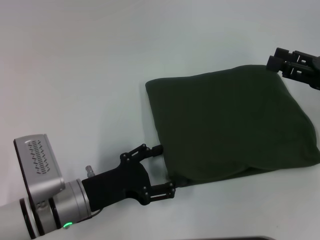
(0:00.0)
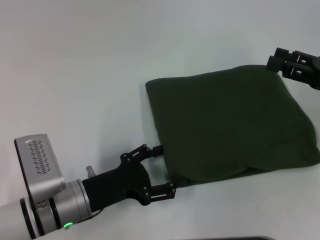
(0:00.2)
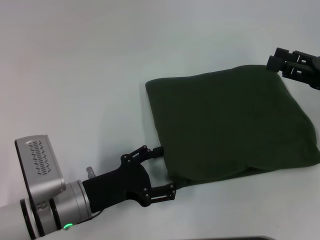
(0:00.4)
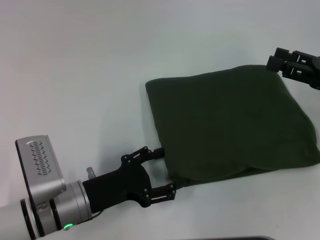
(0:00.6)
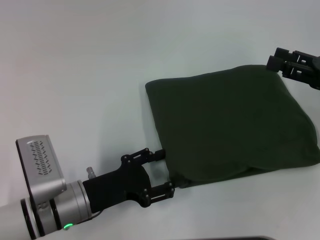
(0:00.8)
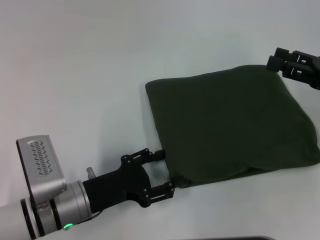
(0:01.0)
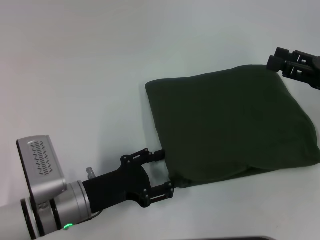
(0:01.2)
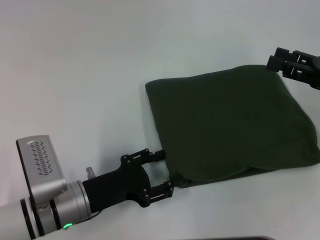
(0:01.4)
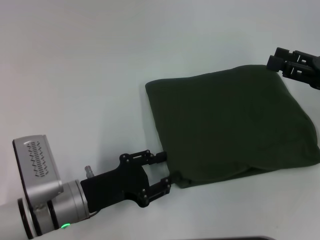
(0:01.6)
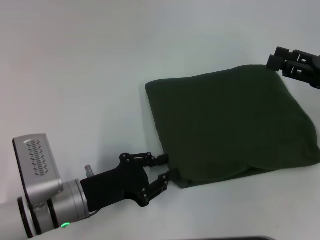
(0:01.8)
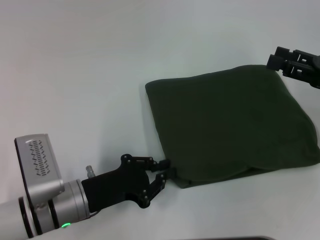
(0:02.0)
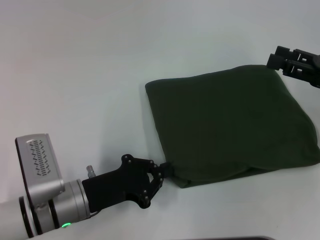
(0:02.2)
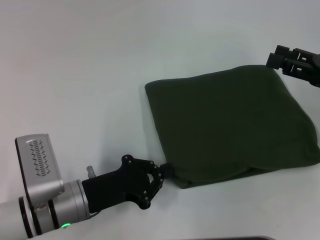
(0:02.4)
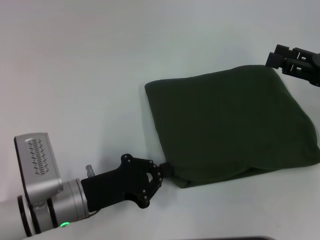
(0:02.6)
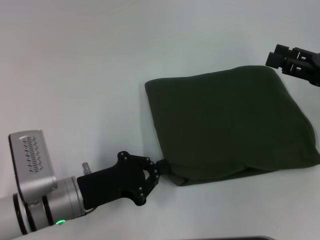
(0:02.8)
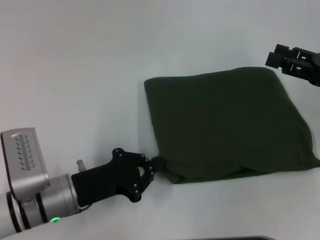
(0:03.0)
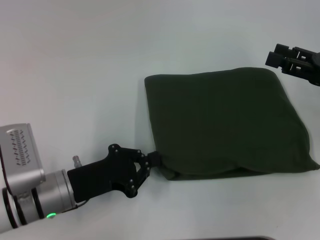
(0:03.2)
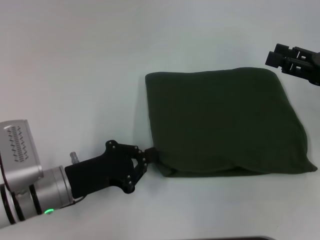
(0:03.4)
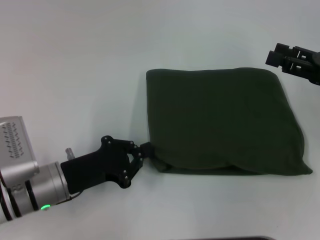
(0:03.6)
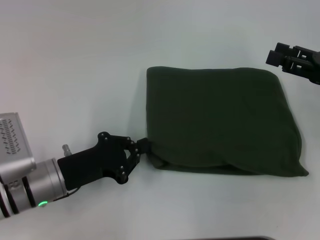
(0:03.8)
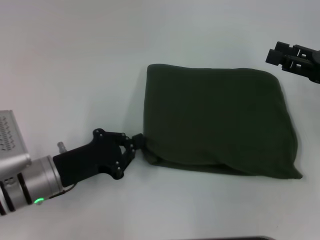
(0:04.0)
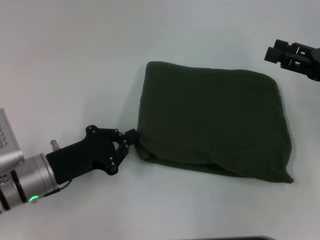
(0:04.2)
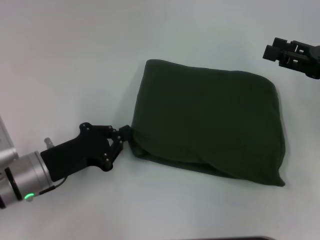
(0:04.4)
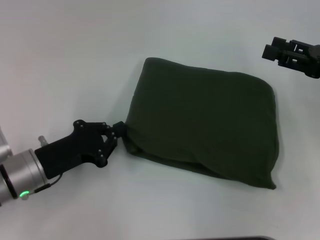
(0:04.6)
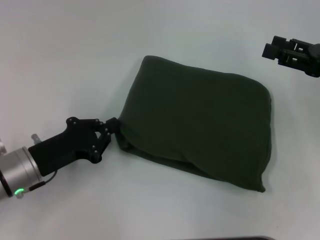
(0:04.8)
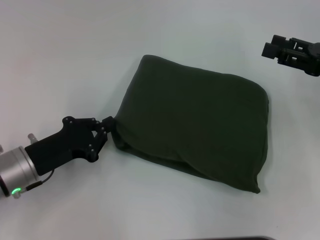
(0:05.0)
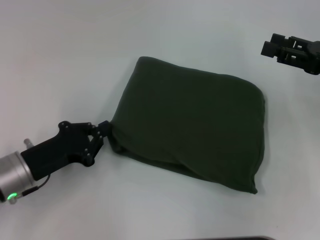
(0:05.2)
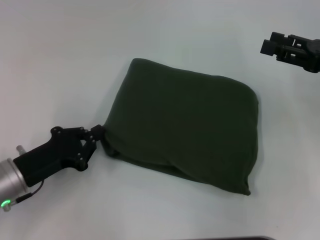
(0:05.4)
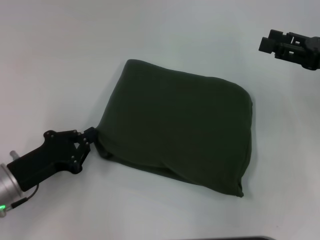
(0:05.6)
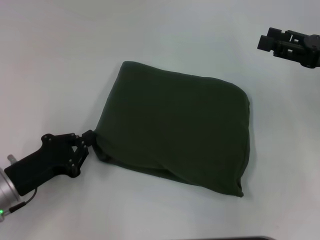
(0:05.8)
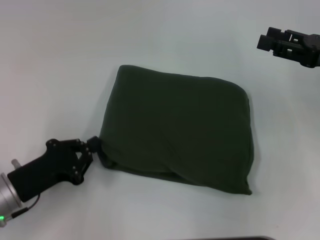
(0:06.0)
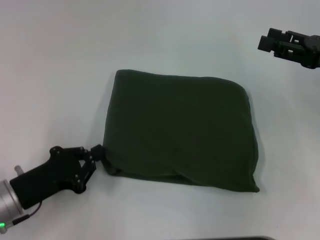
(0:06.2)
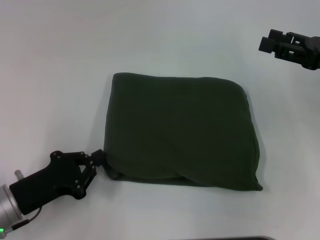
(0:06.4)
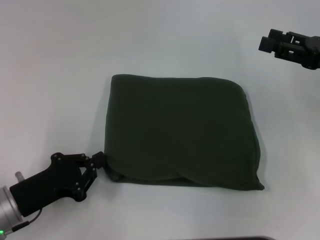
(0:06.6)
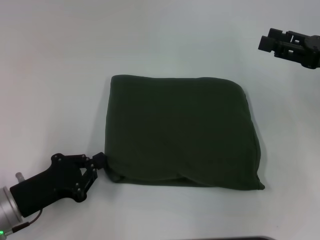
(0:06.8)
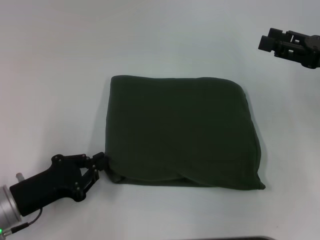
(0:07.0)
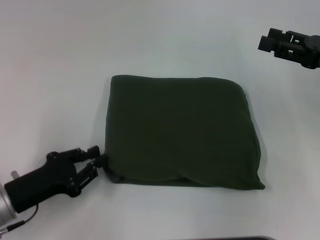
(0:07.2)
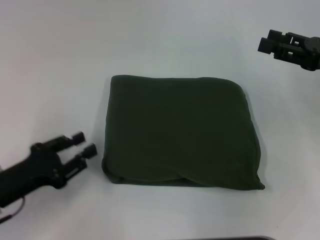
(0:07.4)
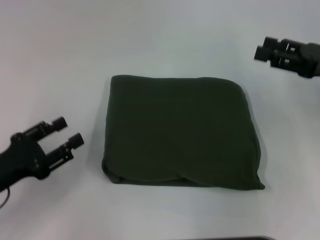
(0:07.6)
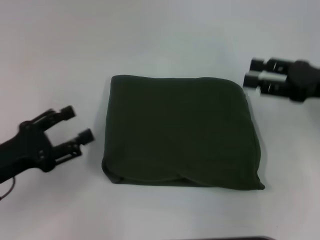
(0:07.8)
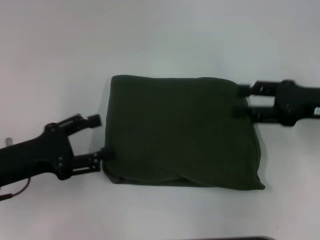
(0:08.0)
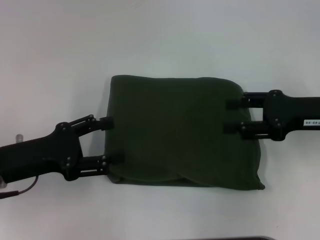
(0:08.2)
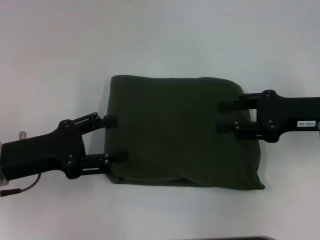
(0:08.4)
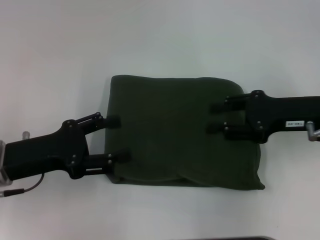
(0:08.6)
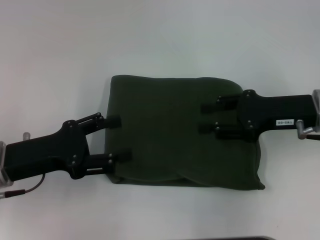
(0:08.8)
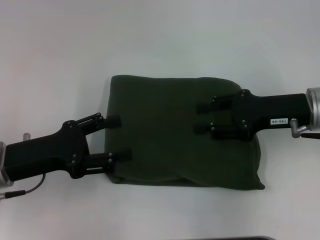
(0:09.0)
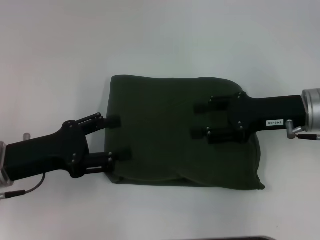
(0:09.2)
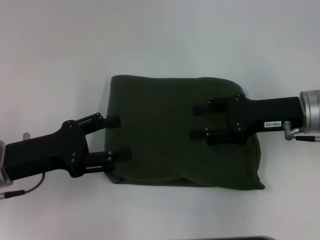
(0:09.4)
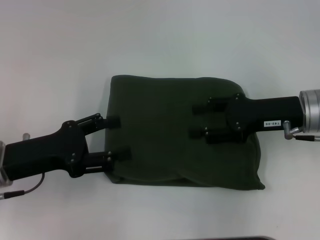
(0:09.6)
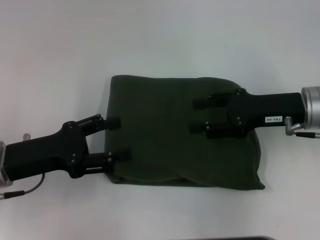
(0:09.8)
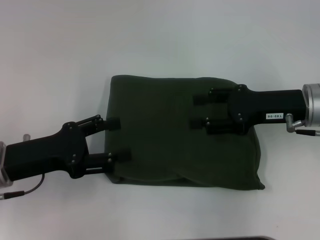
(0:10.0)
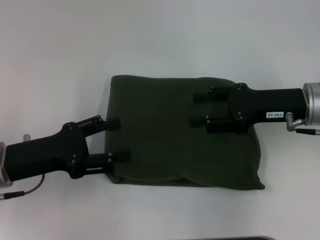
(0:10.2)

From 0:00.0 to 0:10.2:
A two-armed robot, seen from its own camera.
From 0:00.0 to 0:01.4: The two grippers keep their place.
From 0:01.4 to 0:03.0: The left gripper closes.
From 0:04.4 to 0:05.8: The left gripper moves approximately 5 cm.
From 0:05.8 to 0:07.2: The grippers make only small movements.
From 0:07.2 to 0:08.8: The right gripper goes some 10 cm to the left, while the left gripper is displaced upward by roughly 5 cm, and opens up.
From 0:08.8 to 0:10.2: The grippers move only a little.

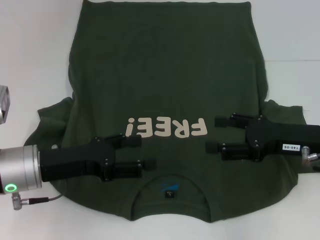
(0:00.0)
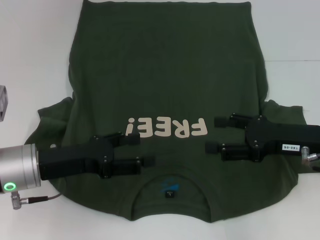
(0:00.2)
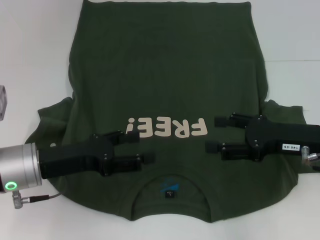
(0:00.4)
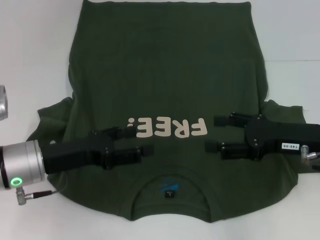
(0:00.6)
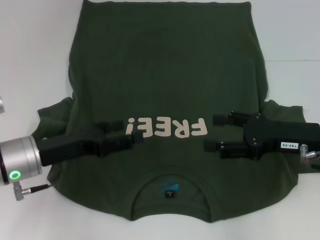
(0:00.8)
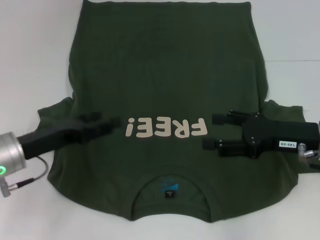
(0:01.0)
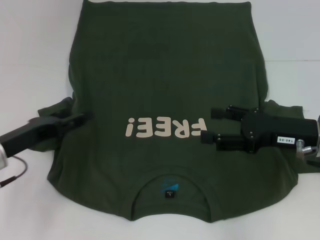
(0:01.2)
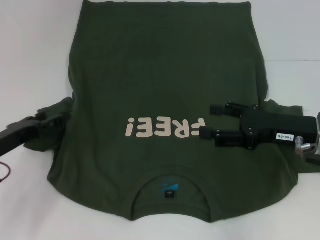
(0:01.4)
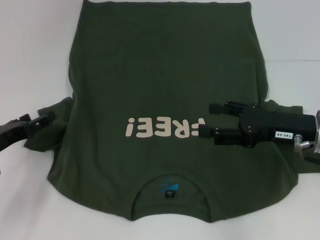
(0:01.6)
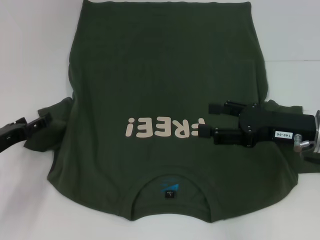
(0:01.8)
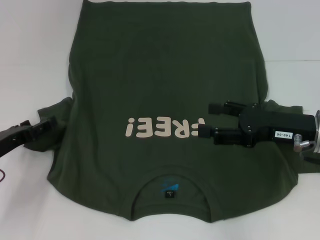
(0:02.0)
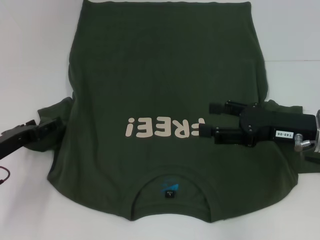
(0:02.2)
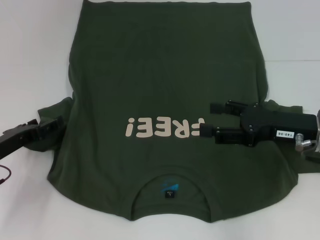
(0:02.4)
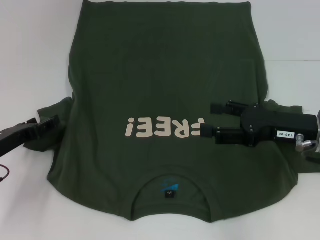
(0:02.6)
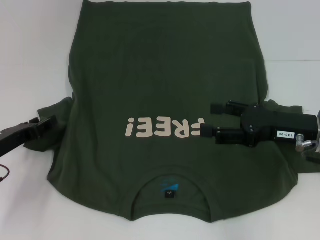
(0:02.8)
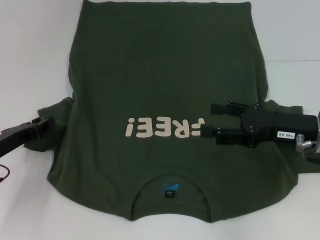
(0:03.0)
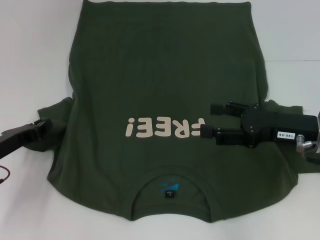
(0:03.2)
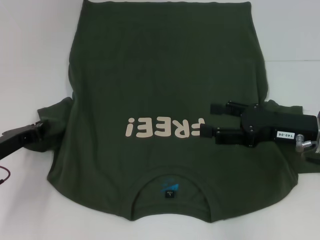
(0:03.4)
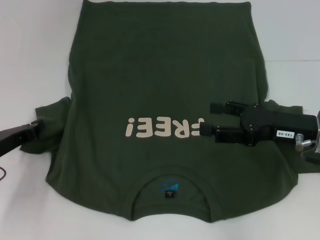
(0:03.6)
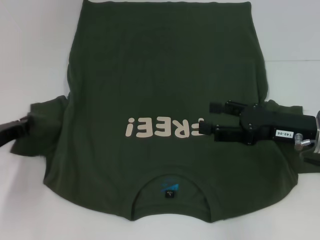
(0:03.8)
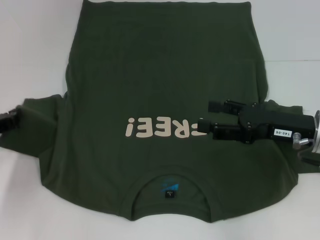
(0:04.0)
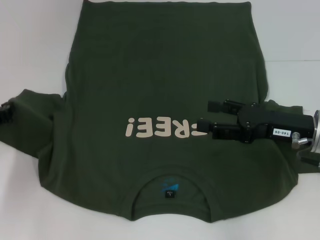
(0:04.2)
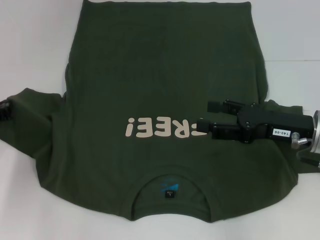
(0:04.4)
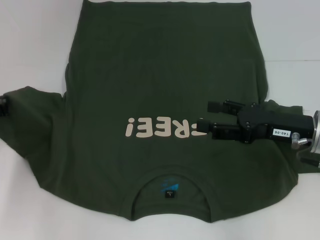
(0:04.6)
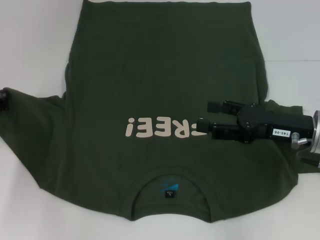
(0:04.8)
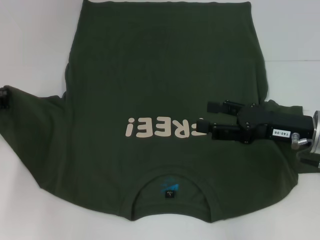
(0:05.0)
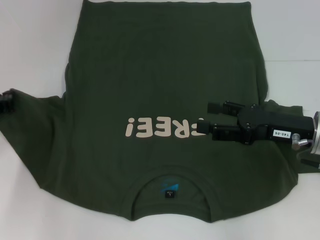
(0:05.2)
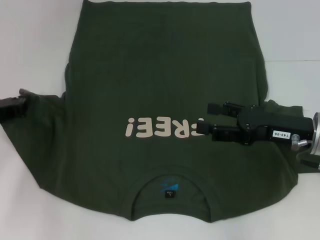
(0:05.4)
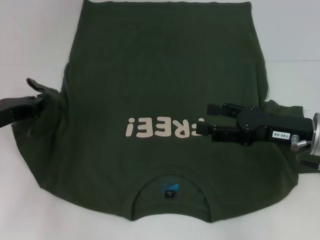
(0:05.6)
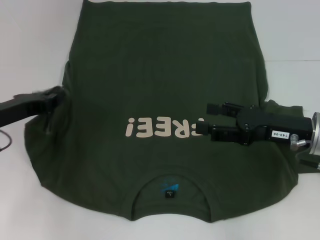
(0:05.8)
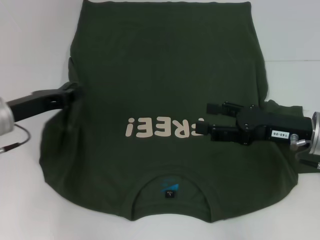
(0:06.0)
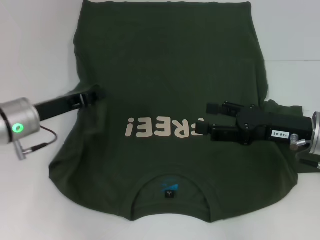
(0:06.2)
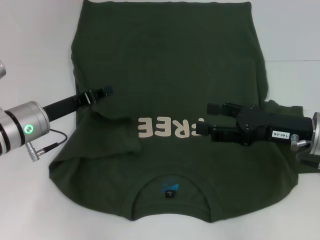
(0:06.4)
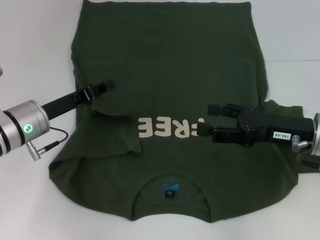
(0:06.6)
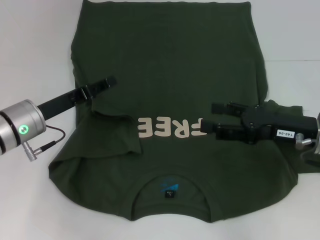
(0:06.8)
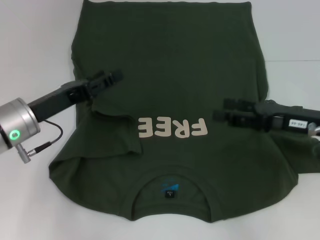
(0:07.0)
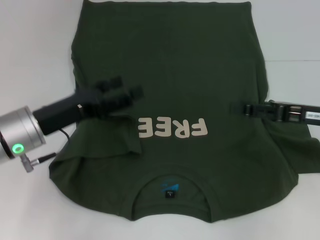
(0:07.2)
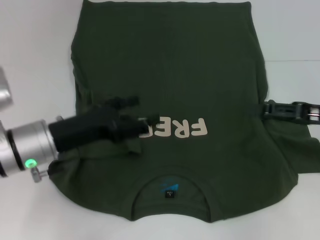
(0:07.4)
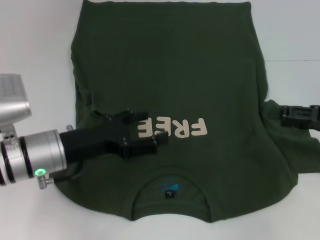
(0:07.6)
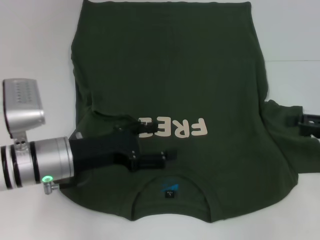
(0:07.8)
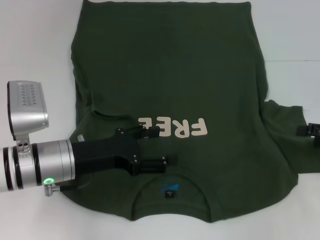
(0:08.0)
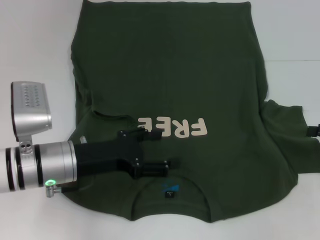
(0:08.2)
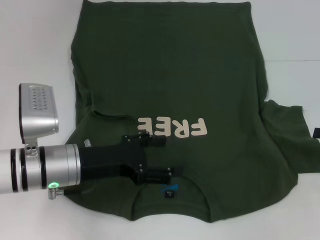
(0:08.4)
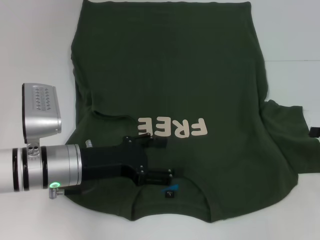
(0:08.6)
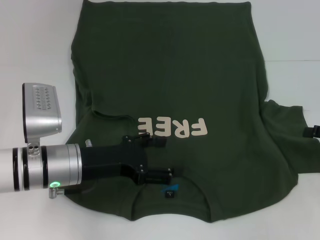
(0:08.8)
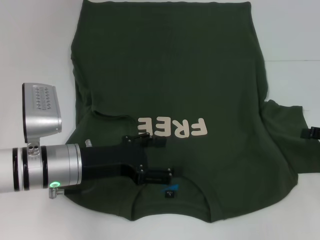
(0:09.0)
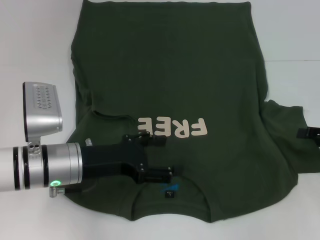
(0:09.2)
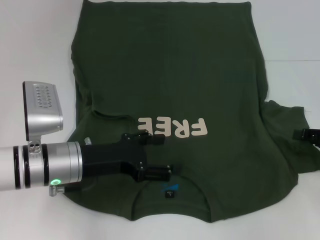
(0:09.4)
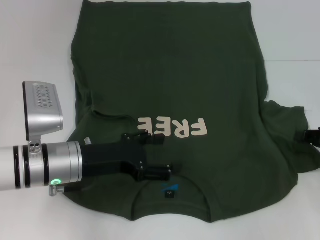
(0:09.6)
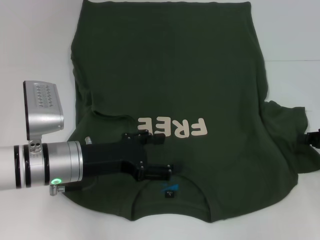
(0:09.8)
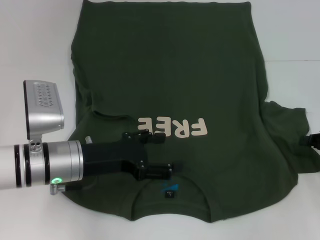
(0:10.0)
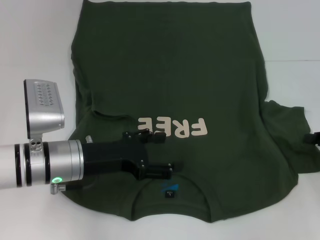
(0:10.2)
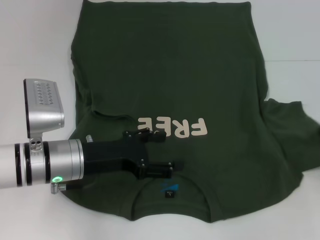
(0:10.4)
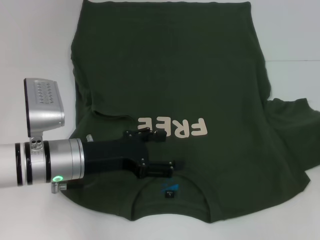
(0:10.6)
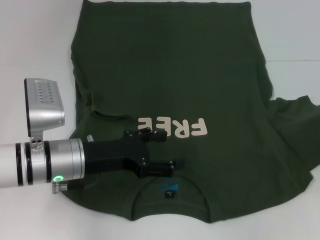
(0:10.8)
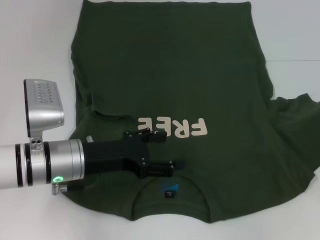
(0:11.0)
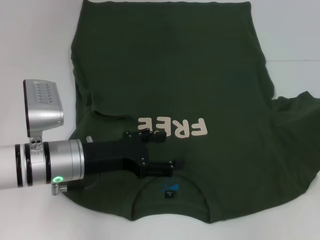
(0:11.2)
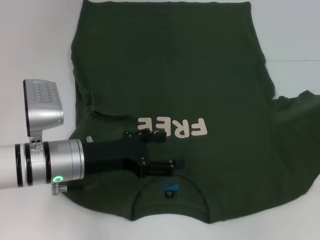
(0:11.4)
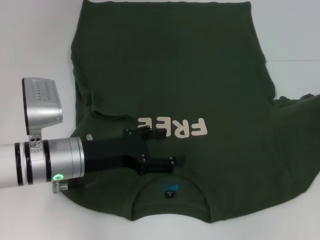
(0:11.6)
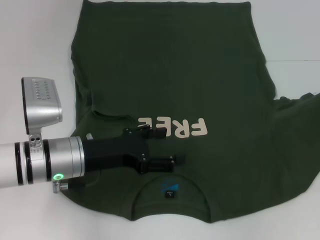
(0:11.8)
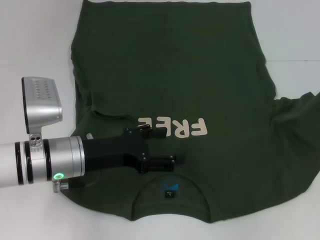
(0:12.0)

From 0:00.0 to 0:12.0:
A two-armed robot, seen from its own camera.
Step, from 0:00.0 to 0:06.4: Fold the bottom left sleeve with your left hand.
From 0:00.0 to 0:01.6: The left gripper travels to the left by roughly 10 cm.
From 0:01.6 to 0:03.0: The left gripper closes up.
From 0:03.0 to 0:04.4: The left gripper ends up approximately 5 cm from where it was, and closes up.
From 0:04.4 to 0:06.0: The left gripper travels to the right by roughly 5 cm.
From 0:06.0 to 0:07.6: Both grippers travel together to the right, some 10 cm. The left gripper opens its fingers.
From 0:07.6 to 0:09.0: The right gripper shifts by some 5 cm.
From 0:09.0 to 0:10.4: The right gripper closes its fingers.
From 0:10.4 to 0:12.0: The right gripper heads forward, covering some 5 cm.
